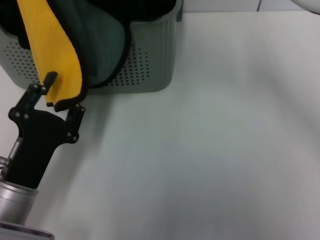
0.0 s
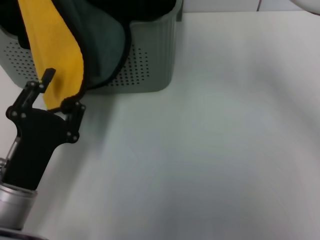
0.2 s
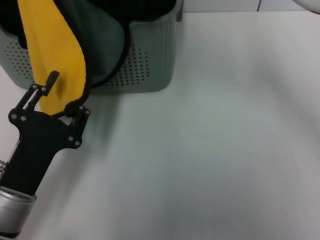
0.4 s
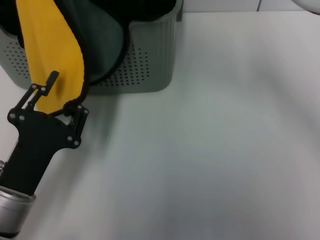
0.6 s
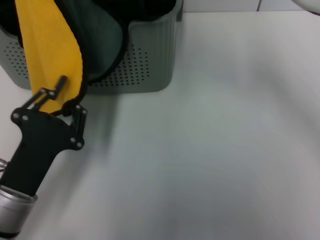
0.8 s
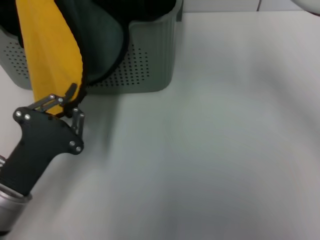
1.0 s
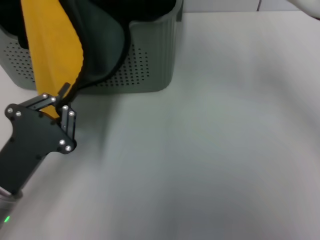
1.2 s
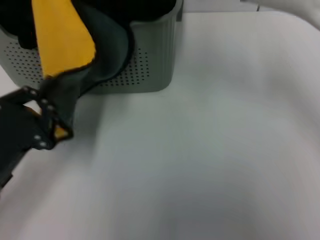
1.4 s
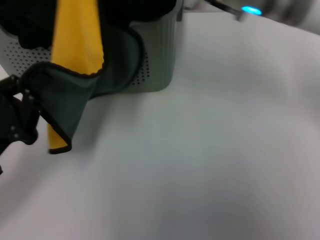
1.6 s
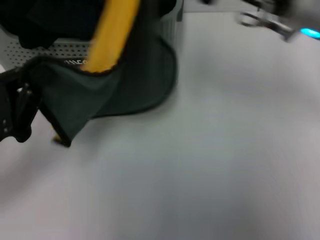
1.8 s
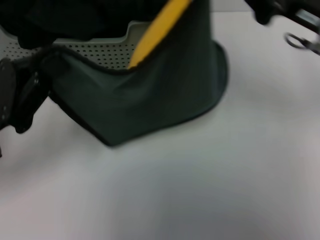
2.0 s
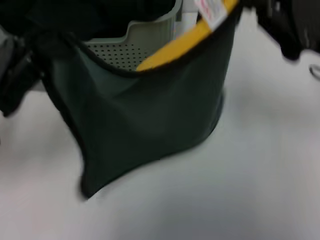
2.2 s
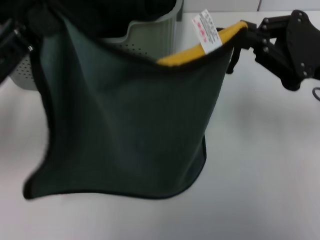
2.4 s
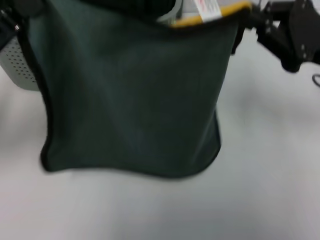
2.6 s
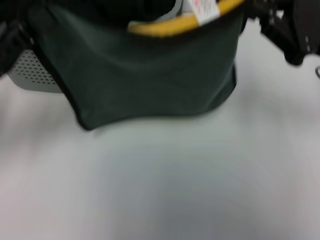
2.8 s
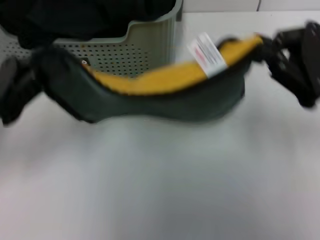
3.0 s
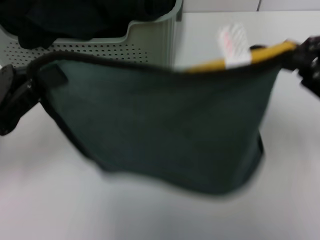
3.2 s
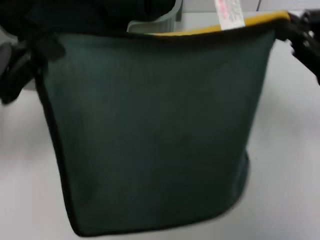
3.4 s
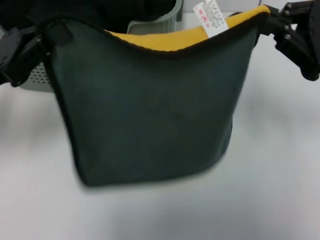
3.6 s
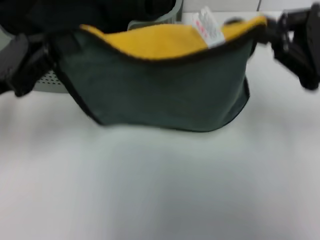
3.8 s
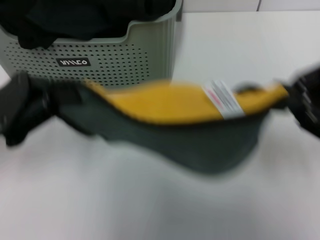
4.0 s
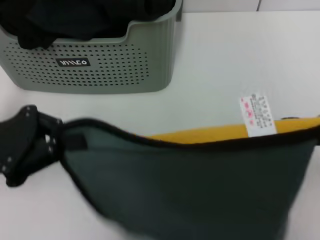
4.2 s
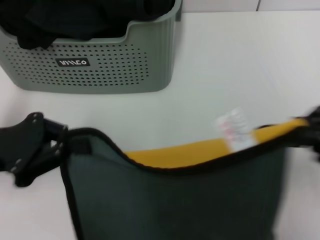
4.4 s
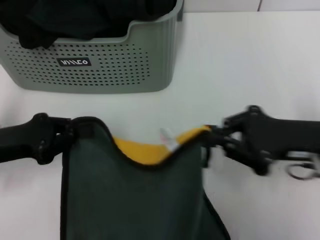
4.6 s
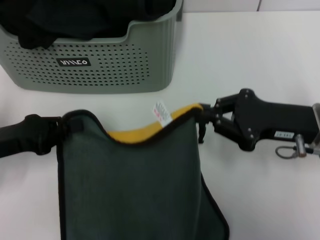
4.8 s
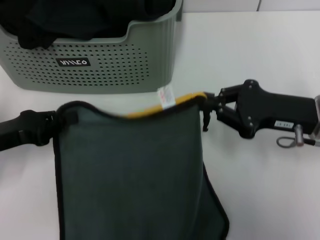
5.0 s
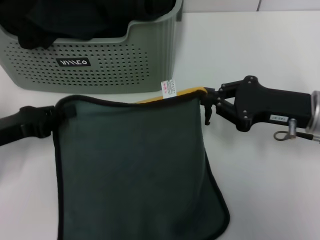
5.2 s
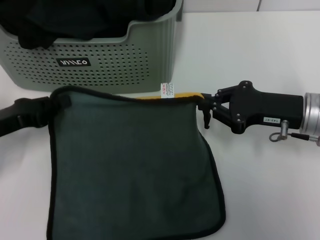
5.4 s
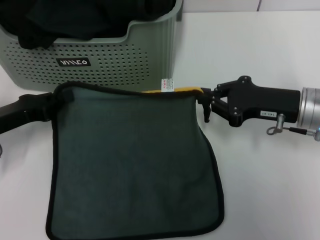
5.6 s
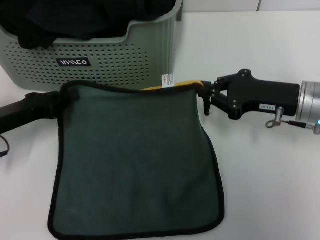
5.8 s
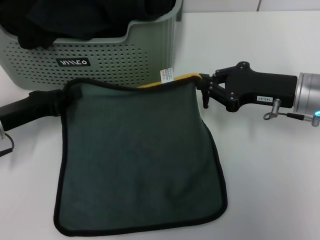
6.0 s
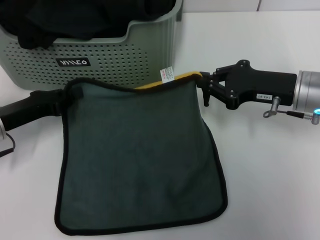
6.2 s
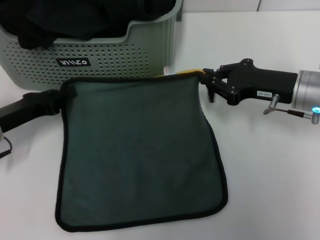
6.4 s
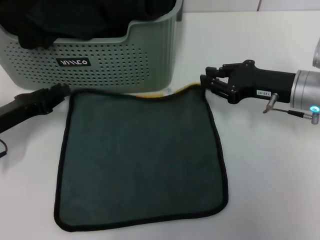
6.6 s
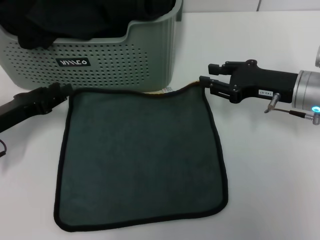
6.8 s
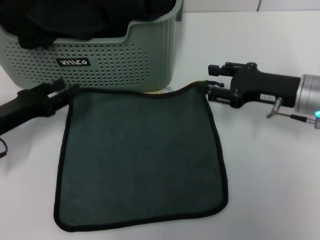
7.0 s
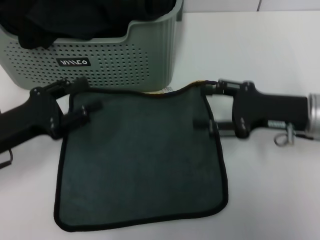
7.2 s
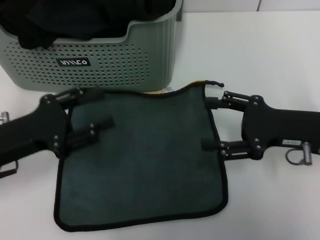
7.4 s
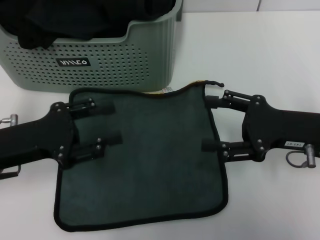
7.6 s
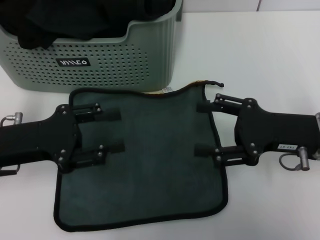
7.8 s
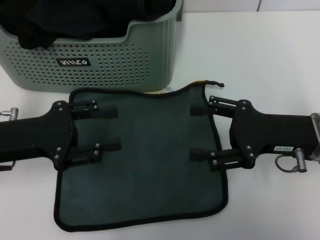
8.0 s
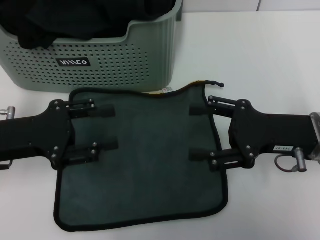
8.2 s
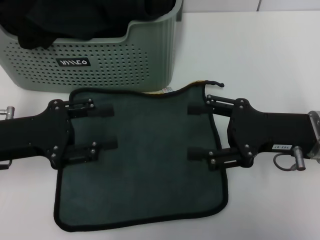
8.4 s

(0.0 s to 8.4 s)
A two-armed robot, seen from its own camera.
Task of the whole recording: pick up the towel from the storage box and lay it flat on the table.
Step, 0.0 s - 6.6 s: Spread the towel flat with the right gripper.
0.0 s - 1.4 s: The left gripper changes place by about 5 cm, and closes.
1.4 s - 2.8 s: The right gripper shifts about 20 cm to the right. The left gripper goes approximately 10 cm forward and upward.
2.8 s - 4.2 s: The right gripper shifts roughly 10 cm backward.
4.2 s - 5.6 s: The right gripper heads forward, downward and to the left, covering some 15 cm. The left gripper travels downward by about 5 cm.
5.6 s - 7.0 s: The right gripper opens, while the left gripper opens up.
7.0 s - 8.4 s: The right gripper shifts some 5 cm backward, and opens up. The left gripper heads upward, covering approximately 5 cm.
